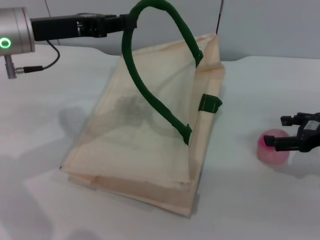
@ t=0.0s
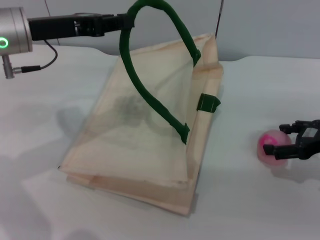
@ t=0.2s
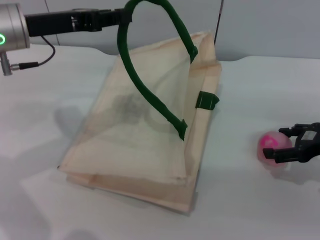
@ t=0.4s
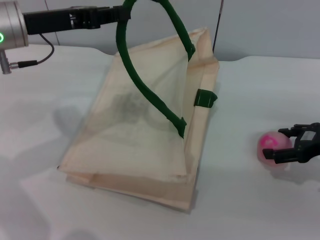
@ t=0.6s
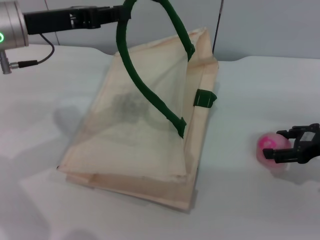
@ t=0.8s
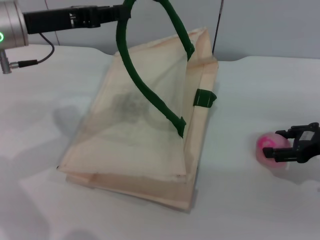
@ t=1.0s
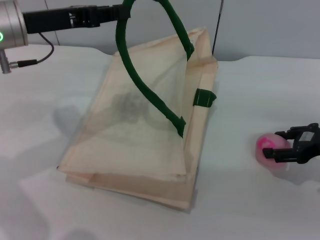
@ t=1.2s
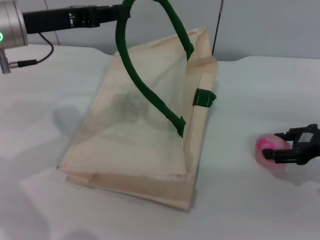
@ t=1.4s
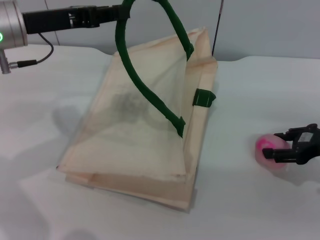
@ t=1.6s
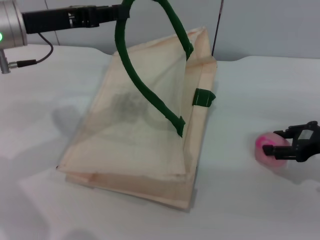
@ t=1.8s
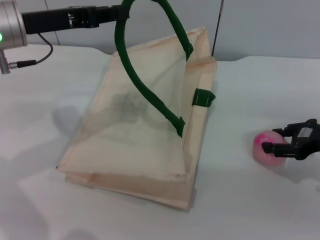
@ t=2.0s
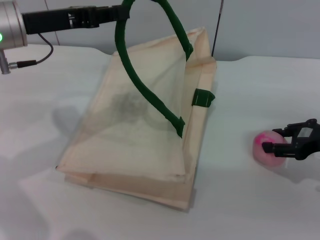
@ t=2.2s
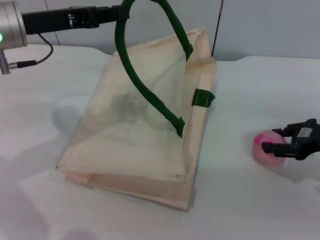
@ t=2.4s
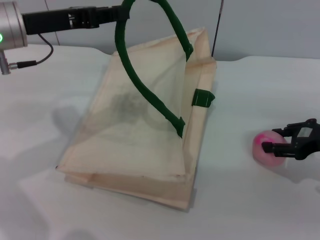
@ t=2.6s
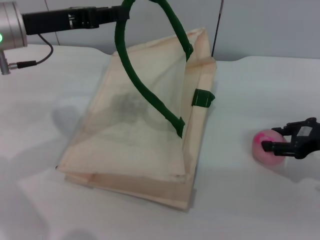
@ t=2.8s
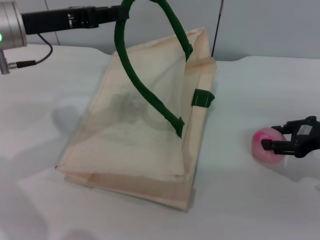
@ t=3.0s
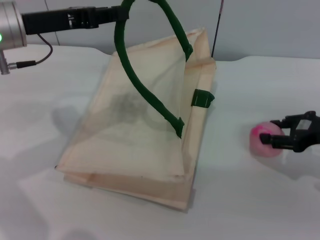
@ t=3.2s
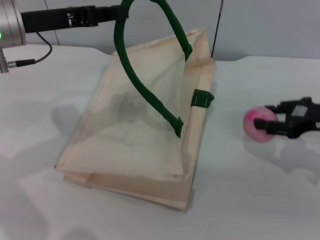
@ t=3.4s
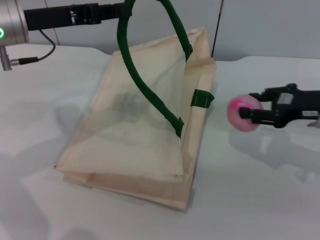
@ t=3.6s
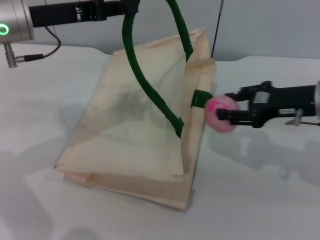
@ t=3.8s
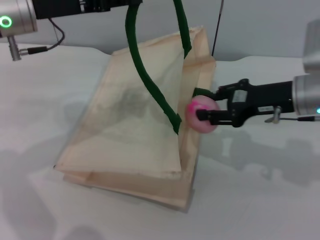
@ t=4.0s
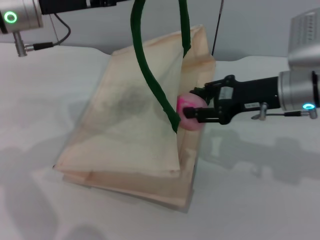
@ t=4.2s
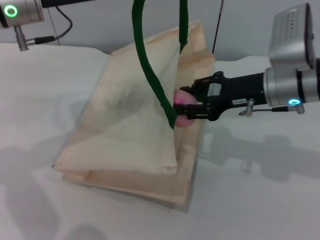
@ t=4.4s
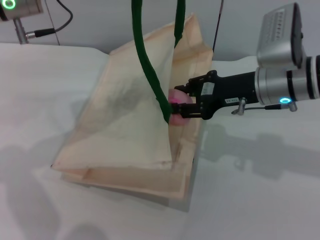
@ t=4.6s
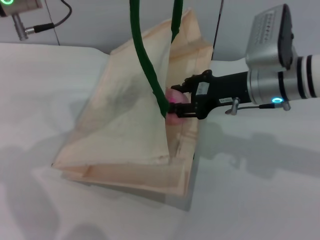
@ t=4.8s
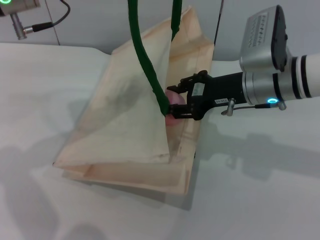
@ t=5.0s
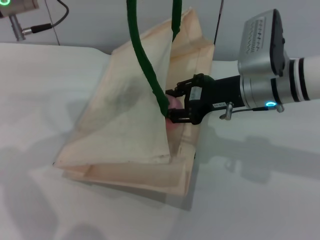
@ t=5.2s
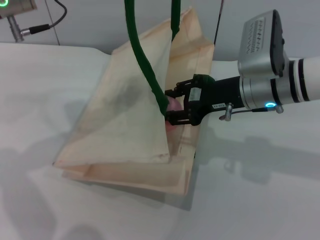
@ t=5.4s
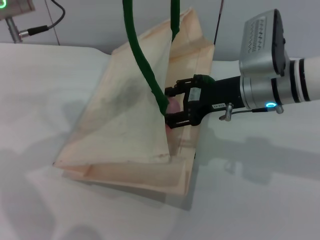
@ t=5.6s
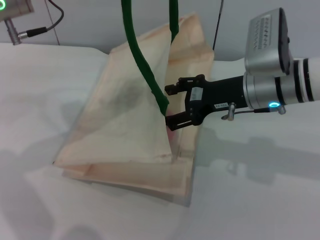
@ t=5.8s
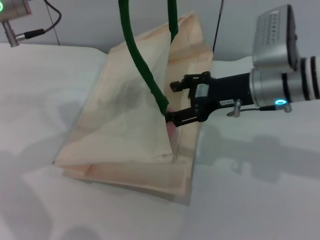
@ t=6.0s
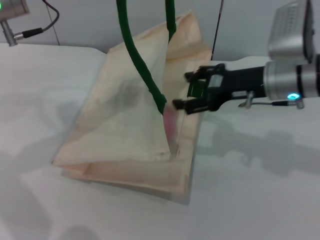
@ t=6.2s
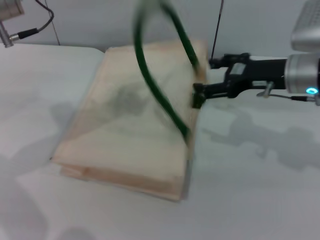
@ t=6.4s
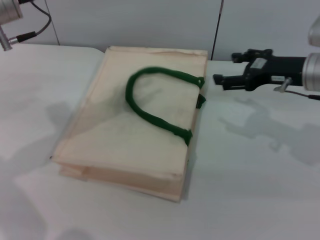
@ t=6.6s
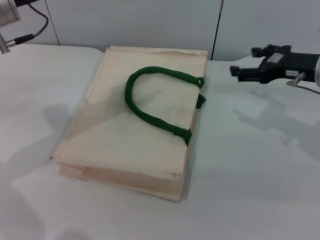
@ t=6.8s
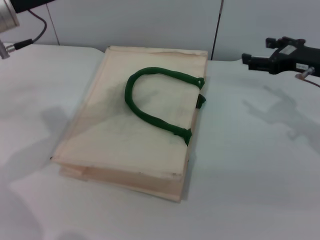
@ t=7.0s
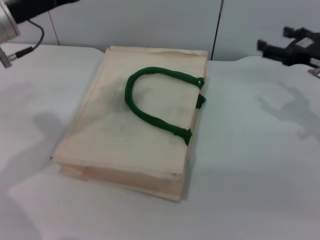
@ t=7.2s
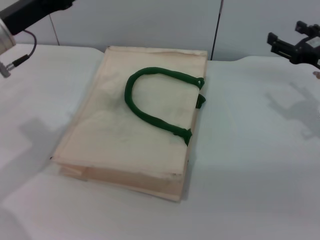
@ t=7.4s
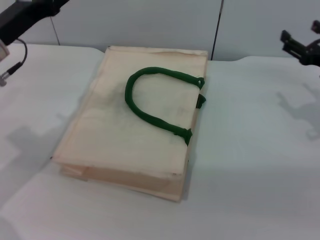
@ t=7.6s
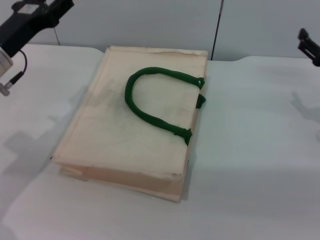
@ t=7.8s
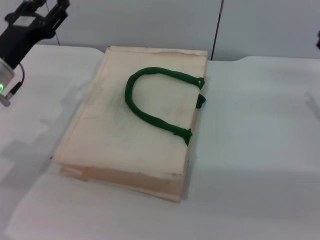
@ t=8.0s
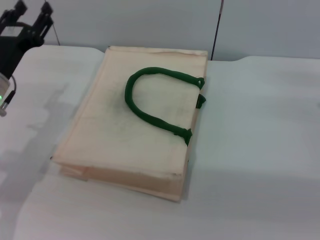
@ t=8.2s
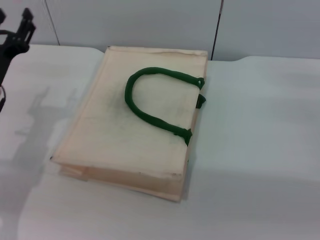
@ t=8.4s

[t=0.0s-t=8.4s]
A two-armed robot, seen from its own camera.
Task of the whole recording: pick up the peach from the table and place it in the white handbag.
Step, t=0.0s to t=3.4s: Pick up the peach with the right gripper.
Step, t=3.6s to t=6.0s: Place the peach into the woven bag with the right gripper.
Step, t=6.2s to t=6.8s: Lower the woven bag with the left gripper to close it.
t=0.0s to t=1.4s: The right gripper closes its fingers.
t=1.4s to t=2.8s: The right gripper closes its fingers.
t=2.8s to t=4.2s: The right gripper heads to the left, covering some 10 cm.
t=5.6s to t=7.0s: The left gripper opens up. Meanwhile the right gripper moves to the right, some 10 cm, and opens its fingers.
t=7.0s to t=8.4s: The right gripper shifts approximately 10 cm backward, downward and to the right. The left gripper is displaced downward and backward by roughly 15 cm.
